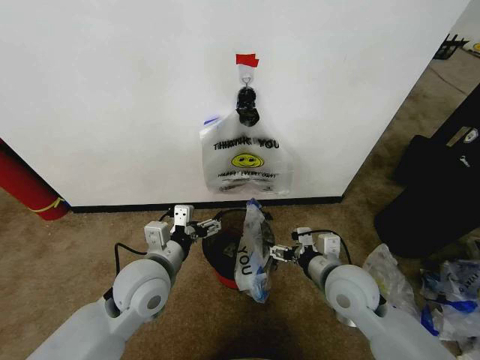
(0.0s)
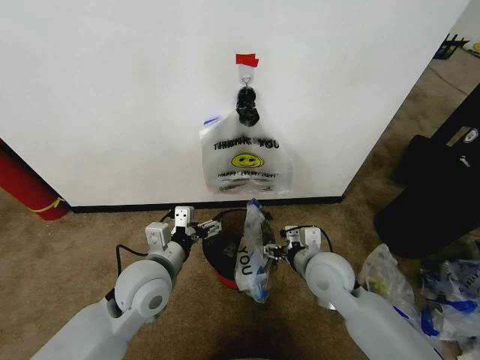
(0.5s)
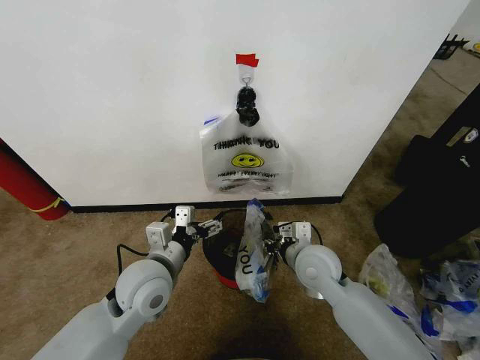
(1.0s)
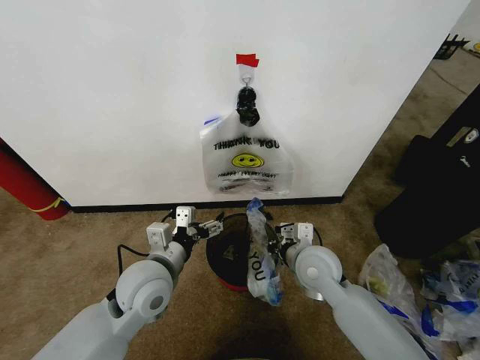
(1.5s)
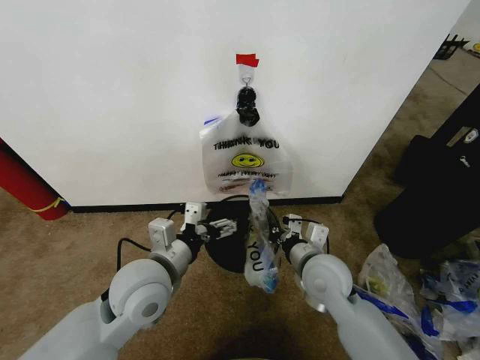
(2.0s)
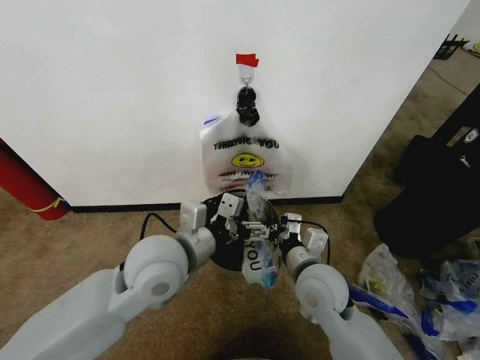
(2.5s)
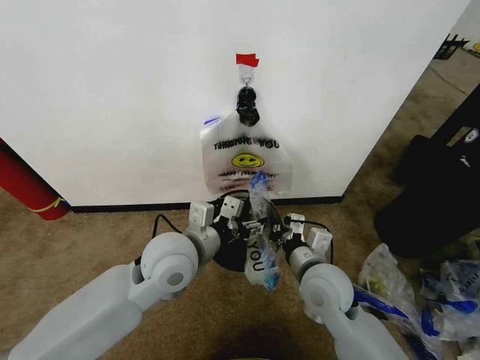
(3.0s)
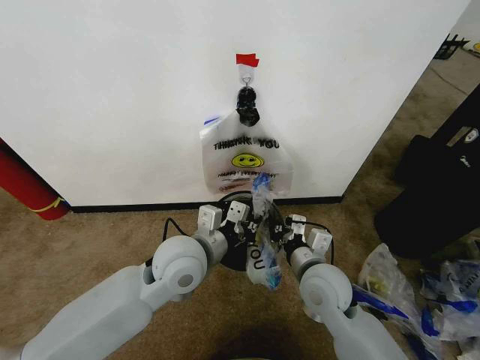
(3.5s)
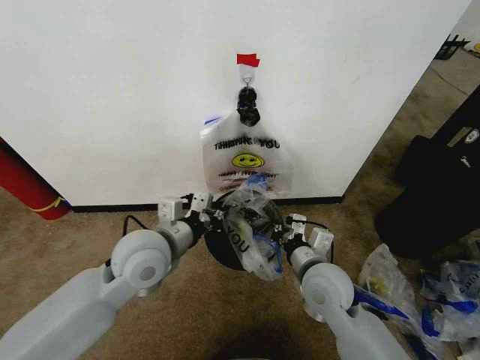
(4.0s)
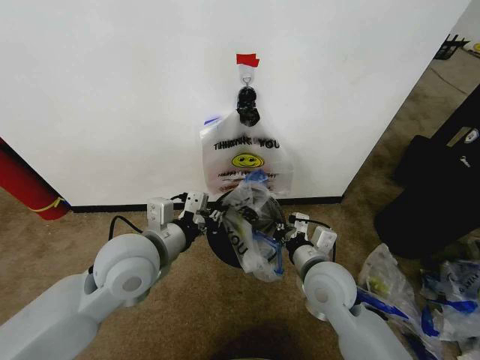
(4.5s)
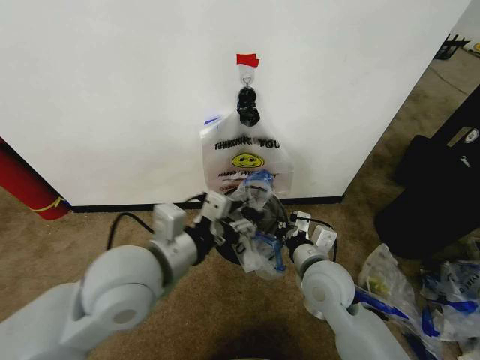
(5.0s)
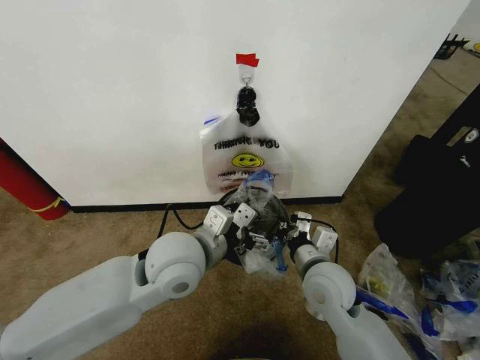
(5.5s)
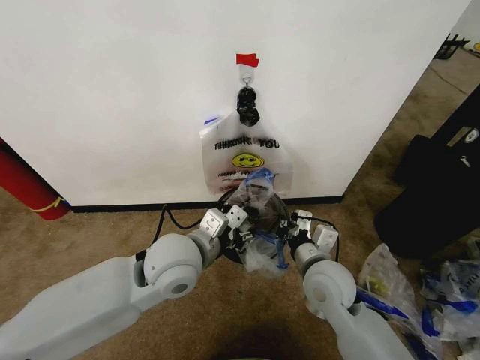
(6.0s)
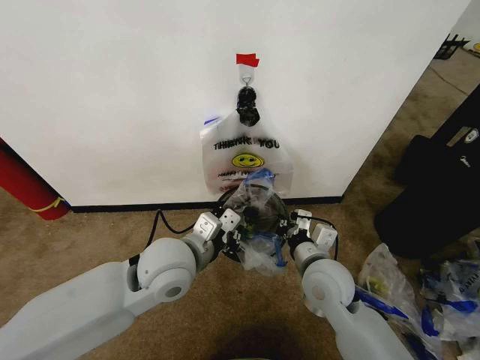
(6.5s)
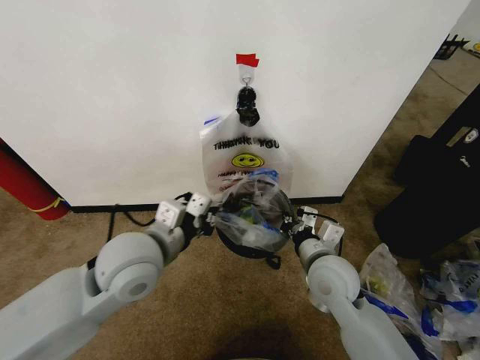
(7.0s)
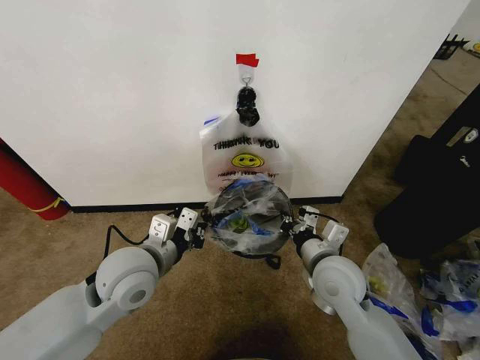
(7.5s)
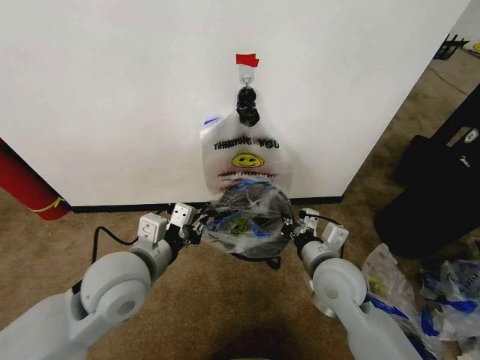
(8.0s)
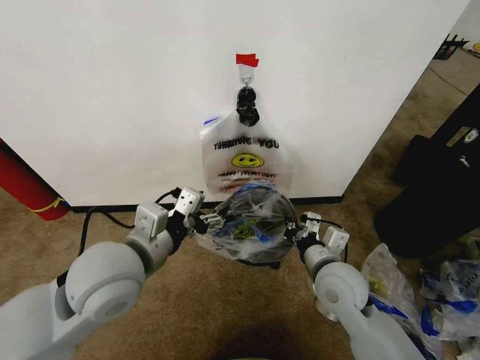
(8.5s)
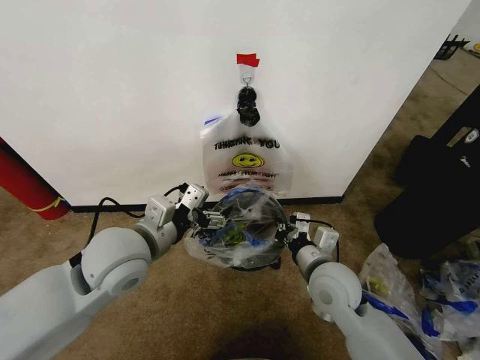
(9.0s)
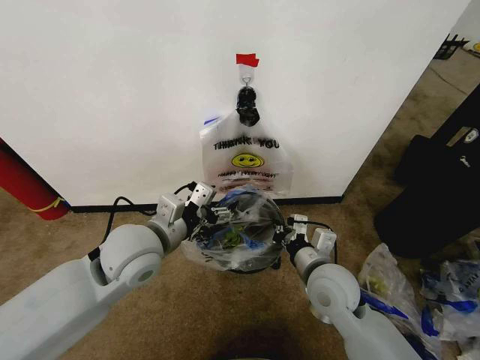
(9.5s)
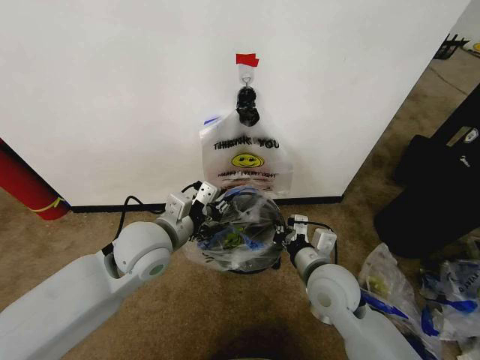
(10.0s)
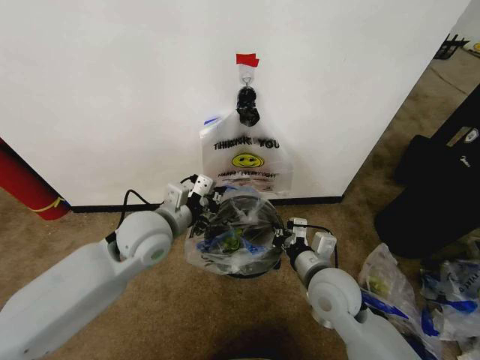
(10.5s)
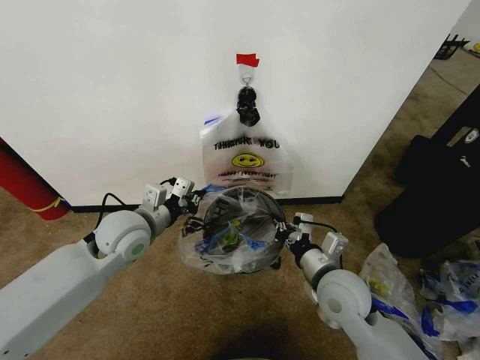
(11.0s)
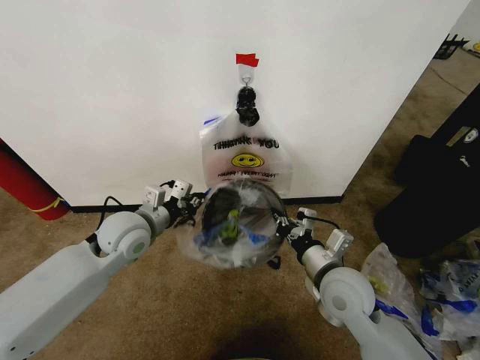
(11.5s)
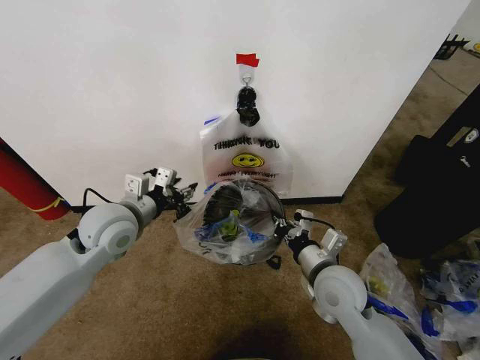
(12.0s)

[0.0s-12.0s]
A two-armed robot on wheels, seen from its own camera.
Task of the whole recording: Pick up the garbage bag from the wall and place it over the trash bin.
0.0s to 2.0s: The right gripper closes.
2.0s to 4.0s: The left gripper changes place by some 5 cm, and closes up.
4.0s to 6.0s: The left gripper goes roughly 5 cm to the right, and opens.
6.0s to 8.0s: The left gripper goes approximately 10 cm to the left.
8.0s to 10.0s: The left gripper heads forward, covering some 5 cm, and opens and closes again.
10.0s to 12.0s: The left gripper is displaced to the left by roughly 5 cm, and opens its fingers.

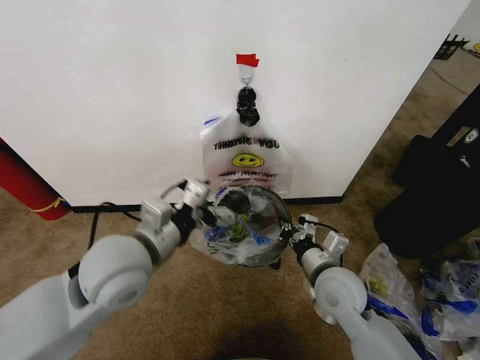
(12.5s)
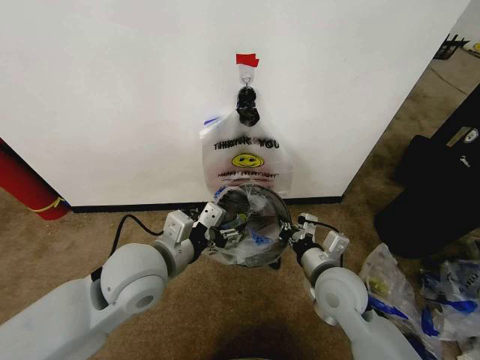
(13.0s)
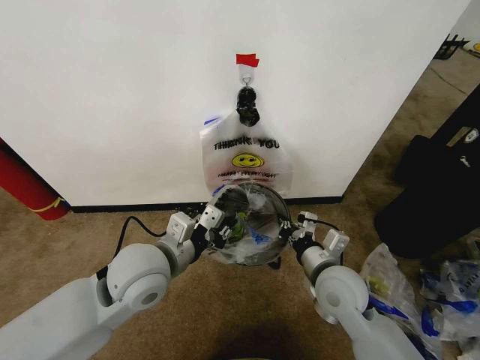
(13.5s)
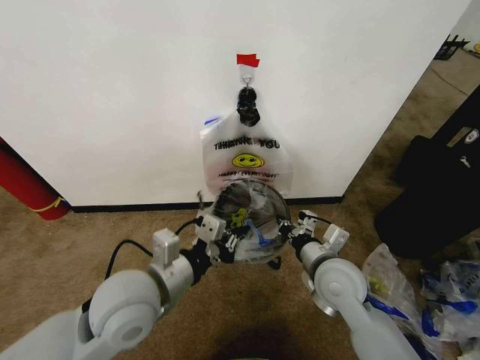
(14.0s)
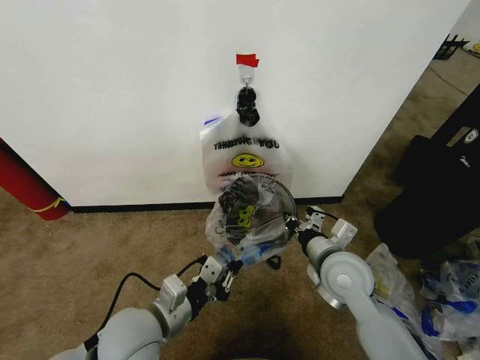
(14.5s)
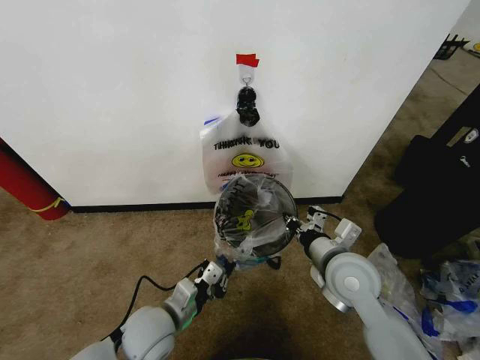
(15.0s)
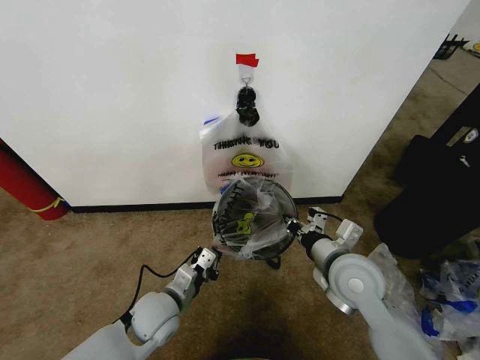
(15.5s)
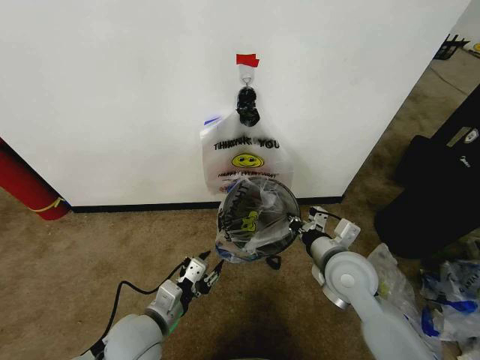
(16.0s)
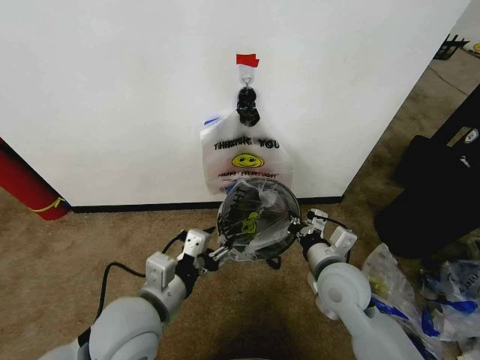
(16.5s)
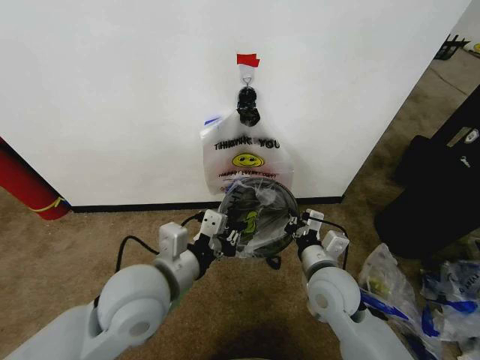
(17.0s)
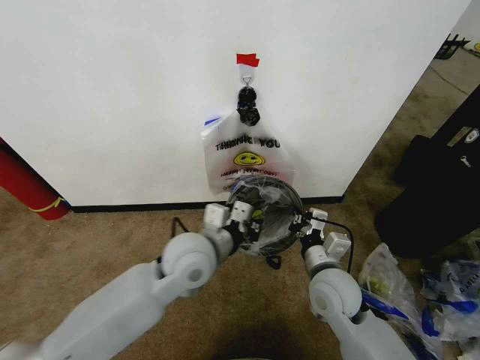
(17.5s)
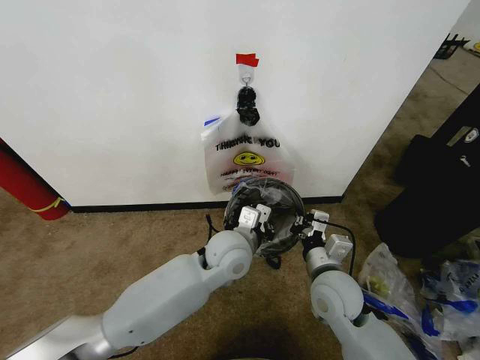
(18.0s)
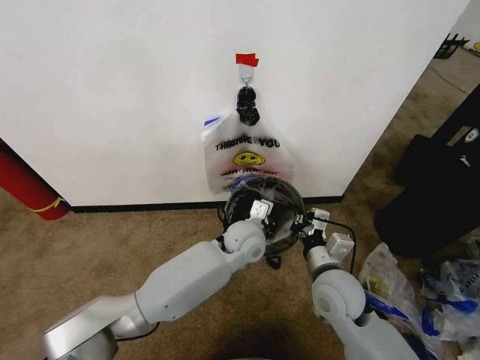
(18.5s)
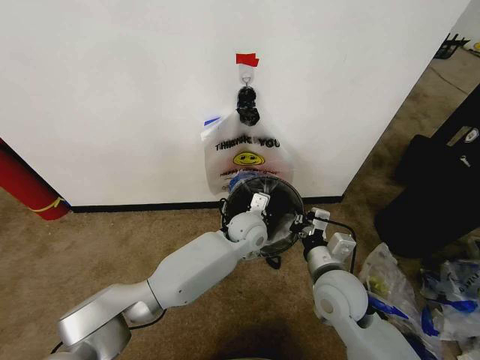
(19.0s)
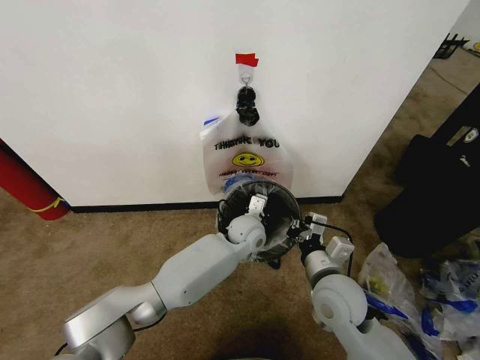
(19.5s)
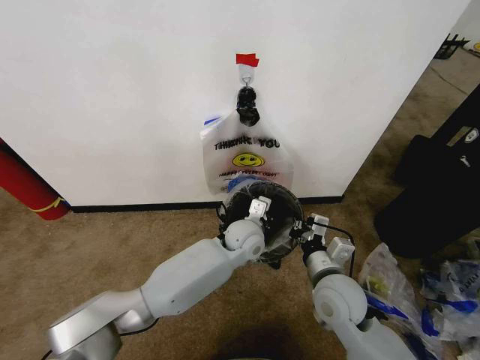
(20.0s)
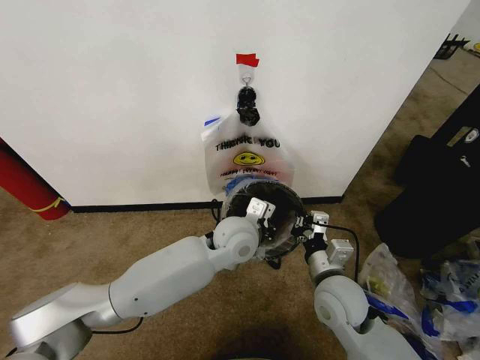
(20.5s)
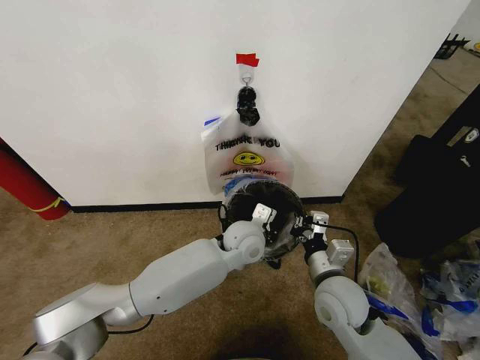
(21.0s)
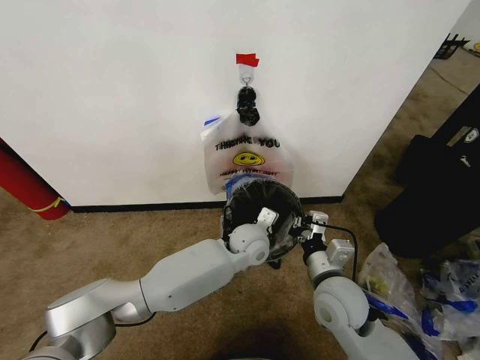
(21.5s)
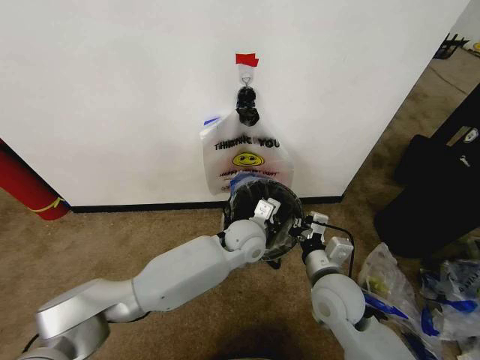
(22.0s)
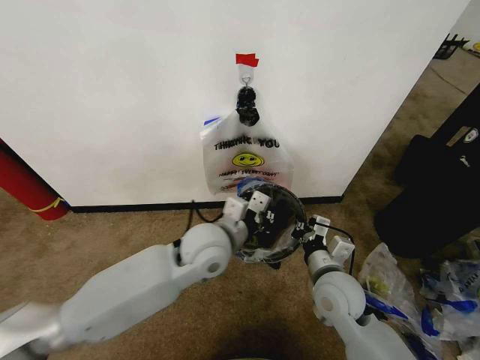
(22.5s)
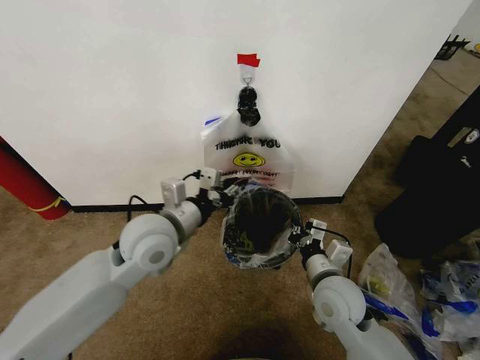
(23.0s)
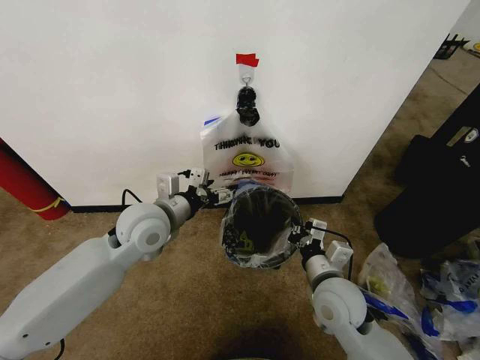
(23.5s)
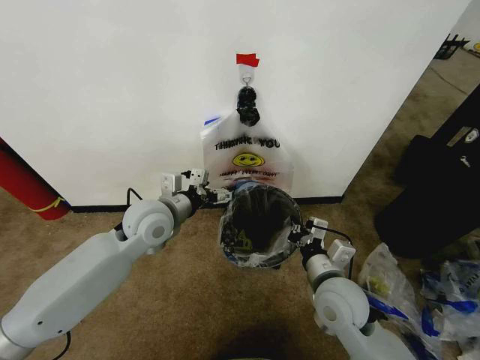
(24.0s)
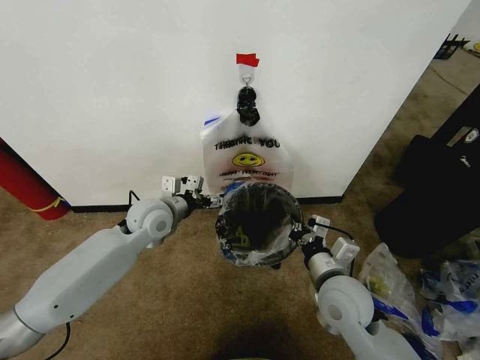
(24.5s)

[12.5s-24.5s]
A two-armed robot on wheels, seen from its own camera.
Task of the whole recording: Pick up the garbage bag from the wall and place it over the trash bin.
12.5s to 14.5s: The left gripper travels downward and backward by some 15 cm, and closes up.
14.5s to 16.5s: The left gripper goes downward and returns, about 10 cm each way, and opens.
16.5s to 18.5s: The left gripper shifts about 25 cm forward and to the right, and closes.
18.5s to 20.5s: The left gripper changes place by some 5 cm.
20.5s to 22.5s: The left gripper moves to the left, roughly 5 cm, and travels downward and back again, roughly 5 cm each way.
22.5s to 24.5s: The left gripper is displaced to the left and forward by some 15 cm, and opens its fingers.

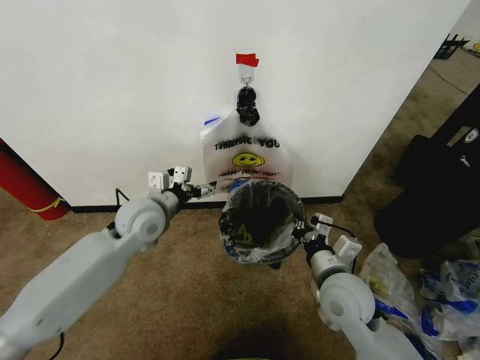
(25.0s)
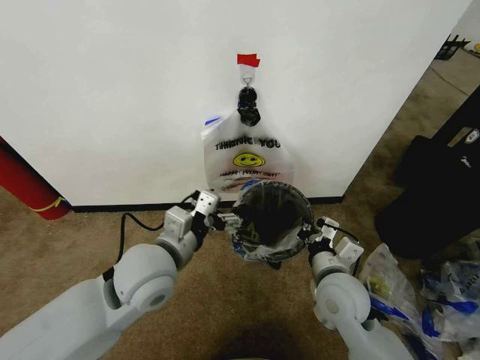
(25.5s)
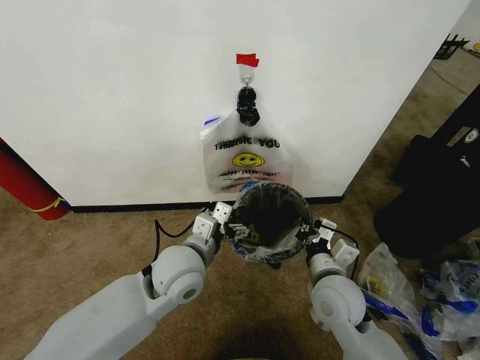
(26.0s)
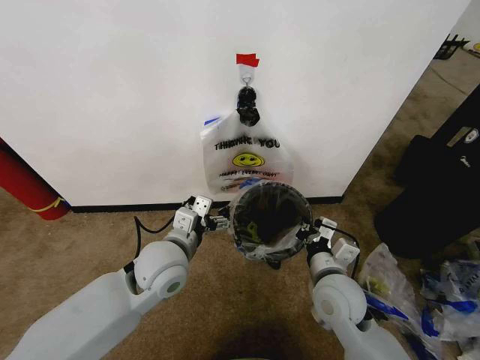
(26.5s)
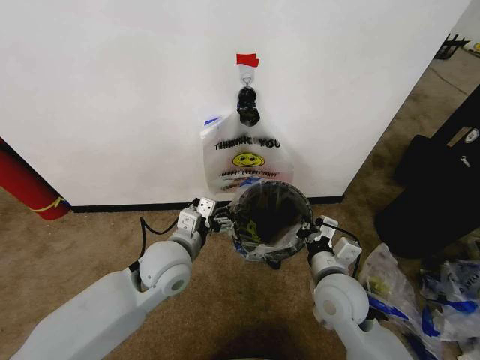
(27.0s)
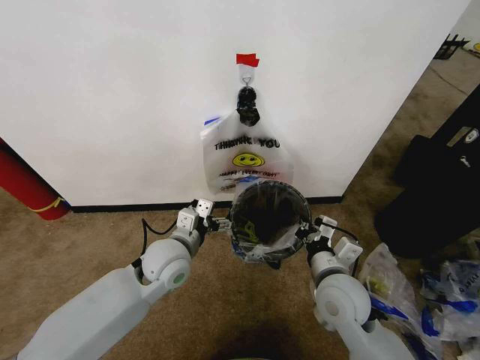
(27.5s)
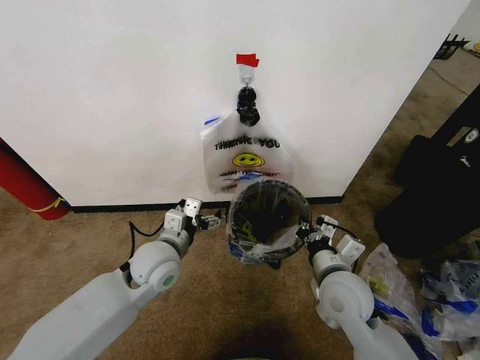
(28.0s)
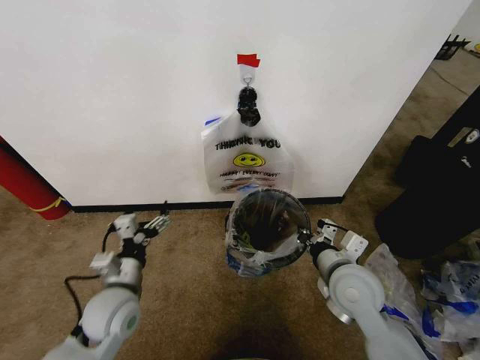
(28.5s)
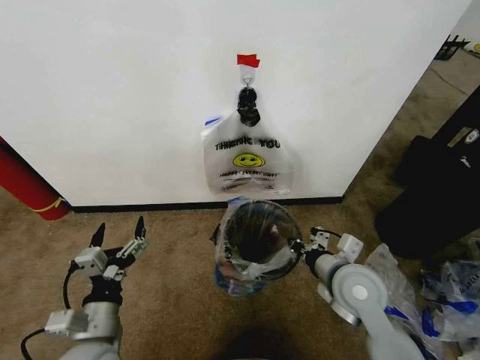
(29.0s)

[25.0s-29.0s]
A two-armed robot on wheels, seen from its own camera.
Task of the whole recording: Pick up the garbage bag from the wall and place it over the trash bin.
25.0s to 27.0s: The left gripper is displaced backward and to the right by about 10 cm.
27.0s to 29.0s: The left gripper is displaced backward, to the left and downward by approximately 20 cm.
